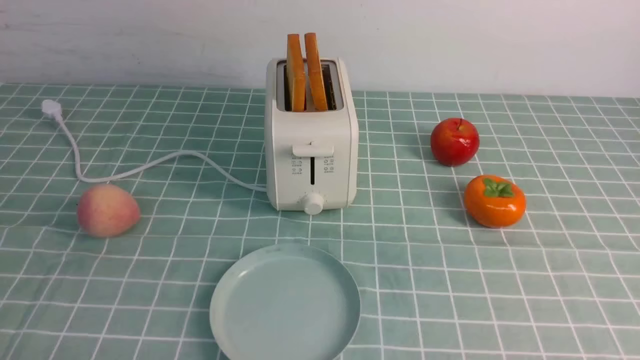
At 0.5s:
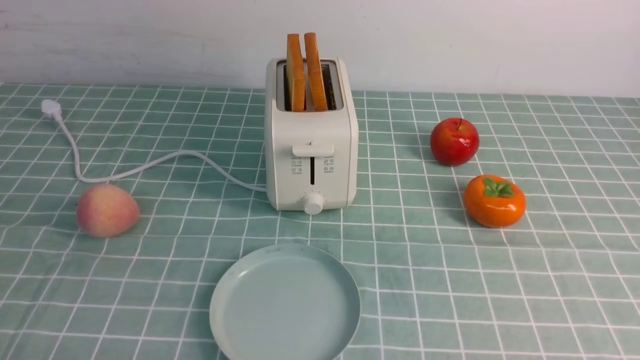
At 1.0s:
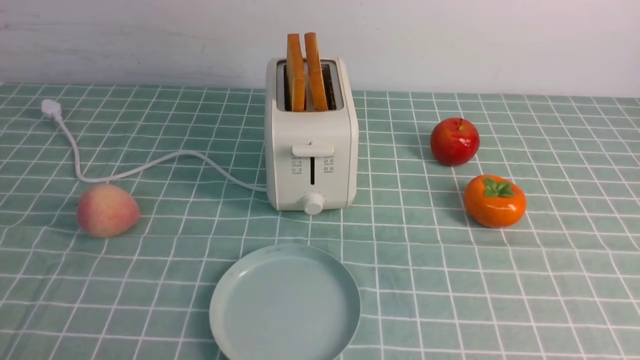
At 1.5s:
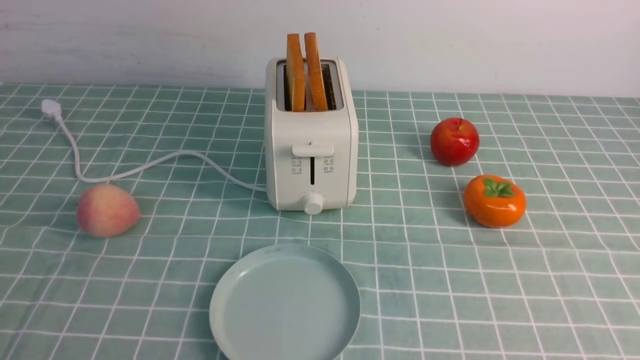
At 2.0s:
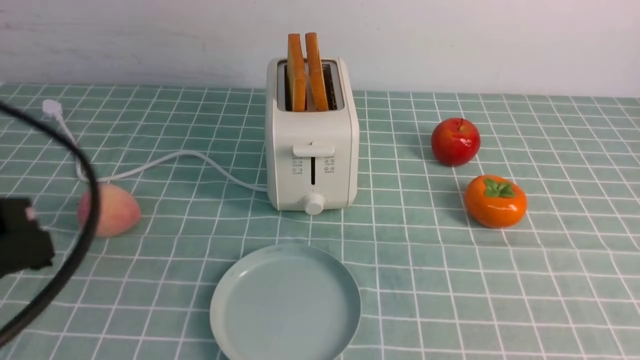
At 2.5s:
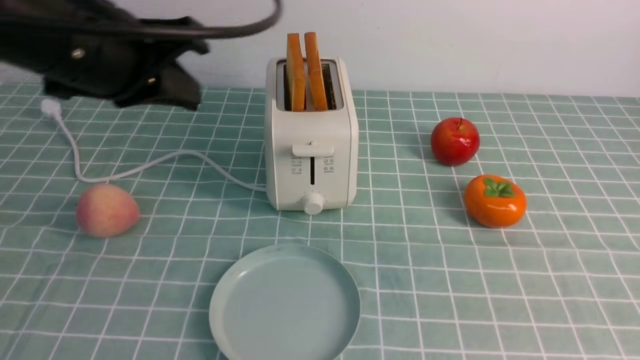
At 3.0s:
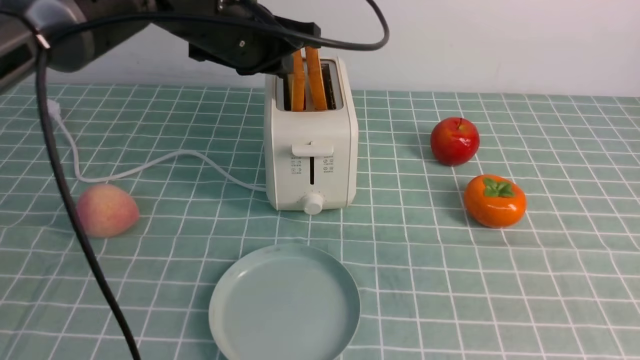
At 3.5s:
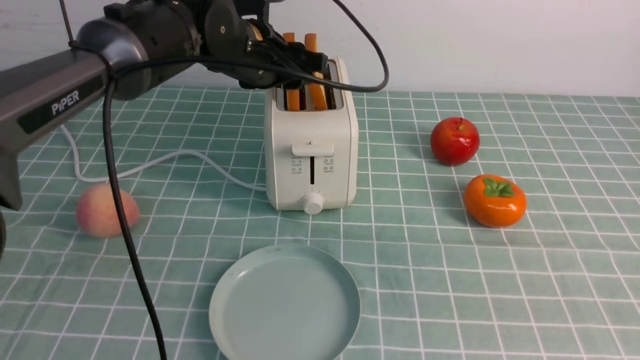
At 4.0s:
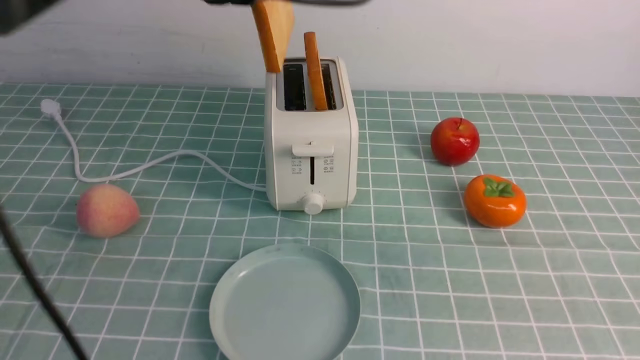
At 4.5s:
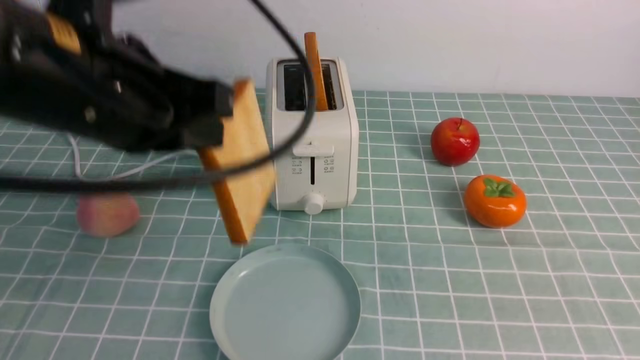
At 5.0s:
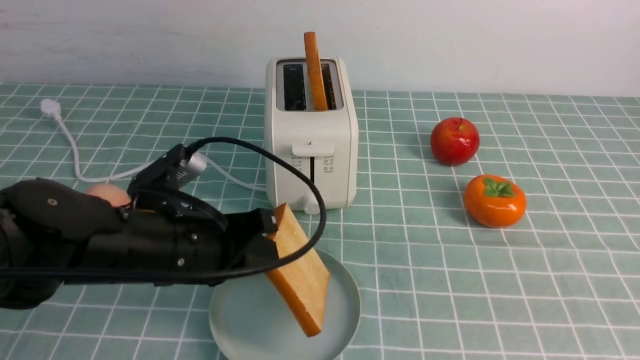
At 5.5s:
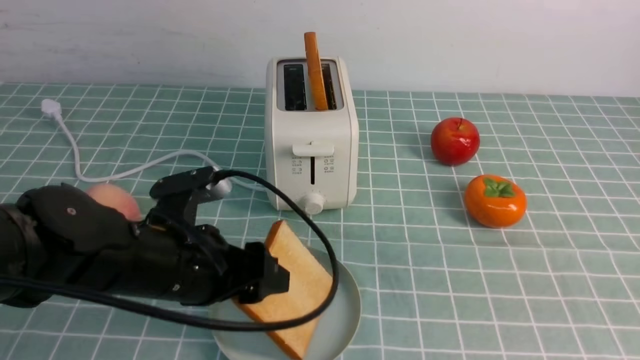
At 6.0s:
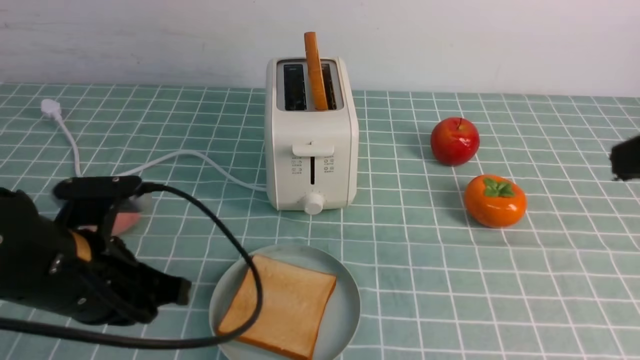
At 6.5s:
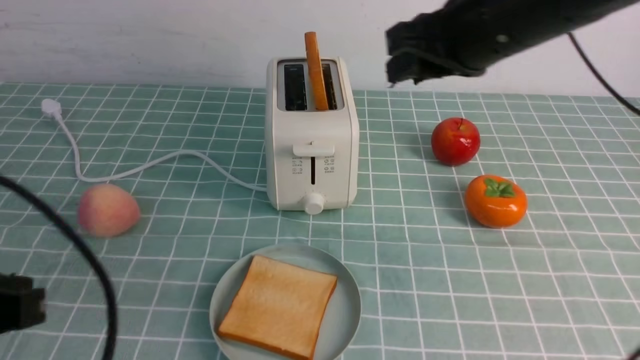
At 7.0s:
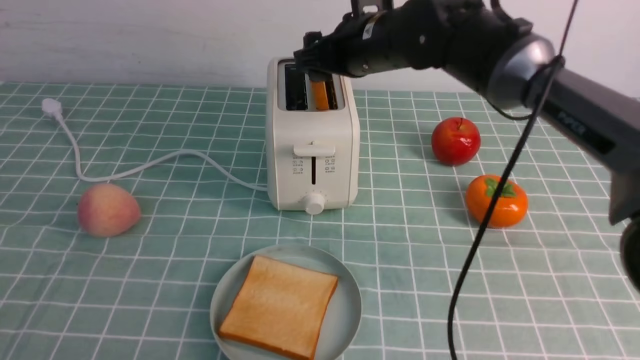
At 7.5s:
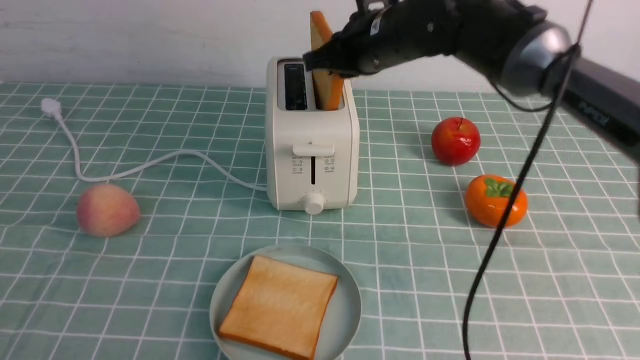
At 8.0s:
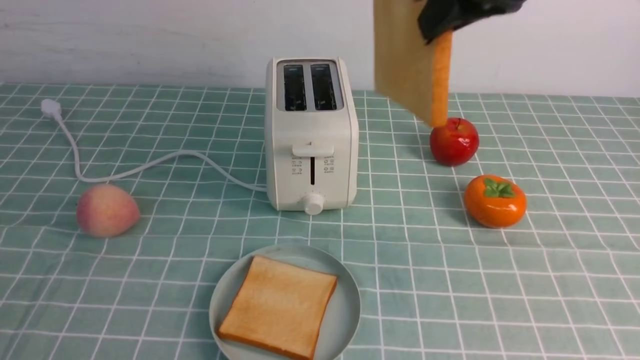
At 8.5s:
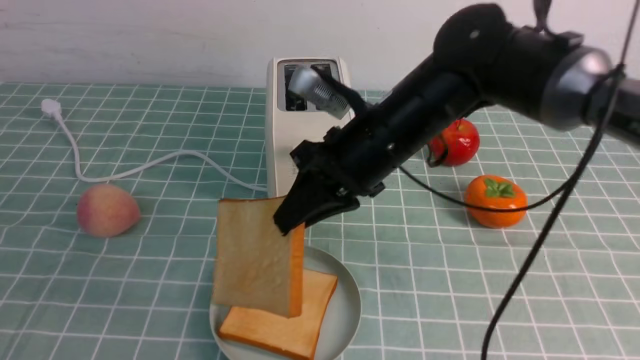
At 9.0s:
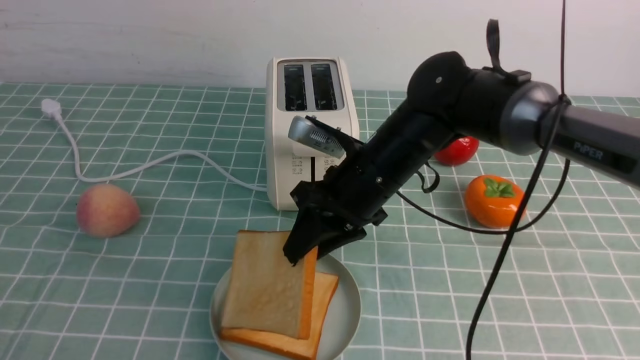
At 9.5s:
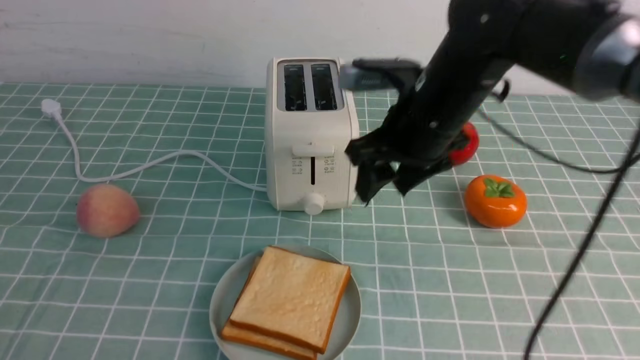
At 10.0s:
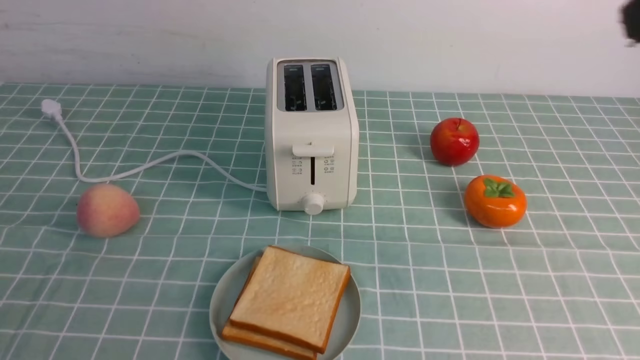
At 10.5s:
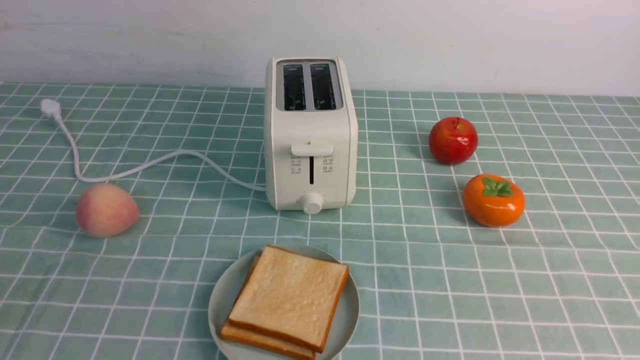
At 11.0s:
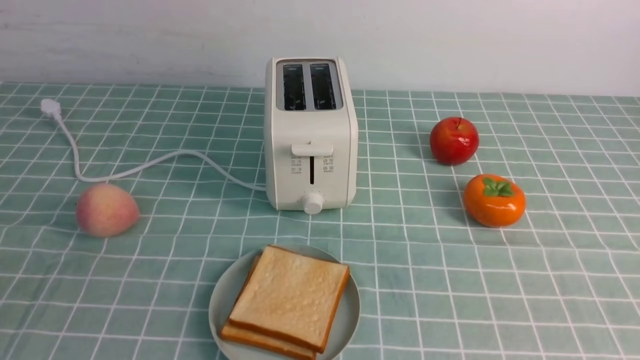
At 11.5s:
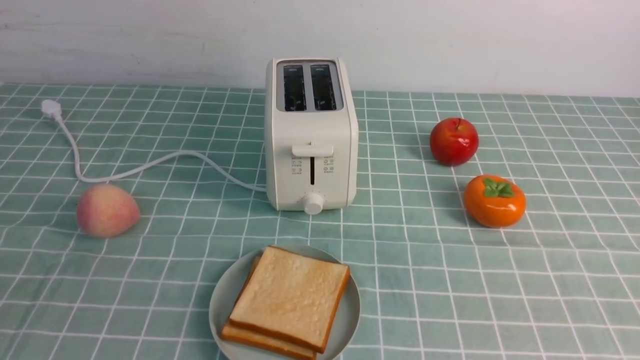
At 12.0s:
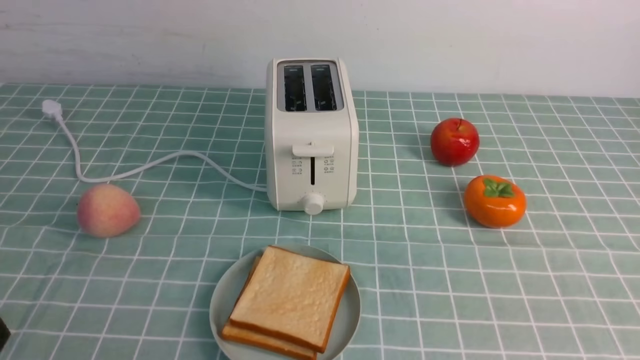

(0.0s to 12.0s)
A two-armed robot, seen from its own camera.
Task of the whole recording: take toasted bread from bread machine on blue coffee table place on plate.
Step, 0.0s - 3.5s: use the left arm to take out a slice of bread.
Step, 4.0s - 6.0s: use the left arm to put a slice of bread into the empty plate.
Step, 6.5s - 8.0s: use the right arm to take out a slice of bread.
Step, 8.5s - 9.5s: use the right arm to put a slice of bread into the plate.
0.0s - 2.0s: The left gripper is displaced upward and forward by approximately 20 cm, and closes up.
2.0s - 4.0s: The left gripper is displaced forward and to the right by about 25 cm, and opens, then closes again; the right gripper heads upward, covering some 5 cm.
4.0s - 6.0s: The right gripper is displaced forward and upward by approximately 15 cm. Meanwhile the left gripper moves downward and backward, about 25 cm, and opens, then closes again.
6.0s - 8.0s: The left gripper moves backward and to the left, approximately 20 cm. The right gripper shifts roughly 20 cm forward and to the left, and opens, then closes again.
8.0s - 10.0s: The right gripper goes about 20 cm backward and to the right, travels downward and back again, roughly 20 cm each way, and opens, then closes again.

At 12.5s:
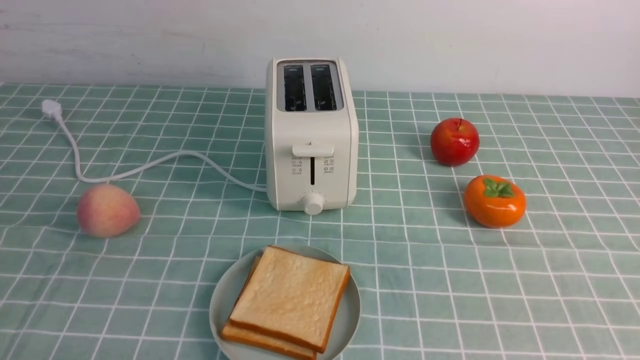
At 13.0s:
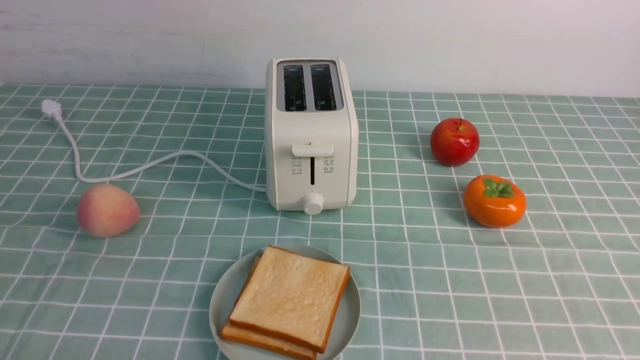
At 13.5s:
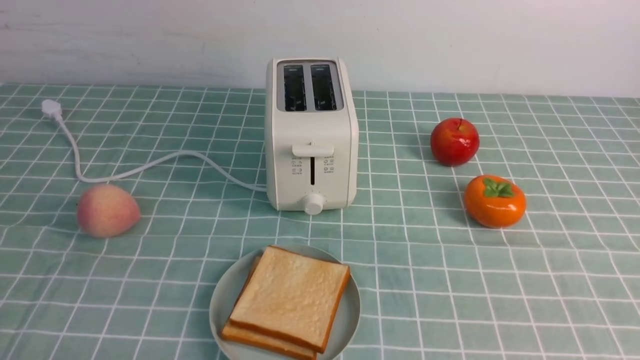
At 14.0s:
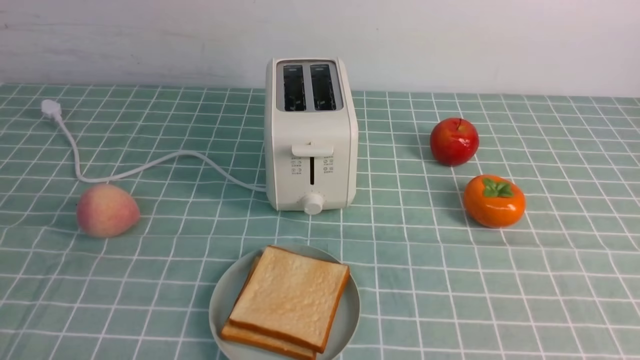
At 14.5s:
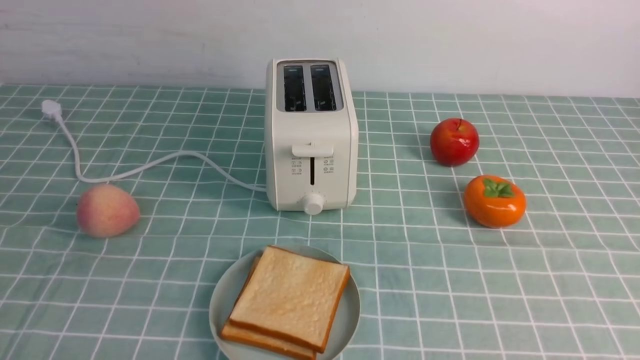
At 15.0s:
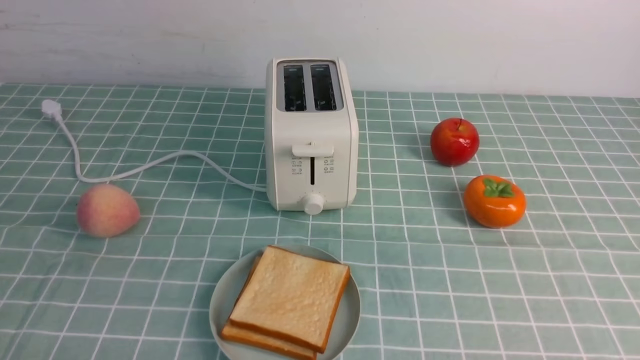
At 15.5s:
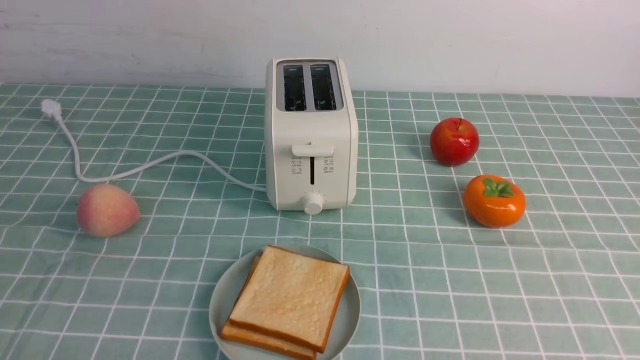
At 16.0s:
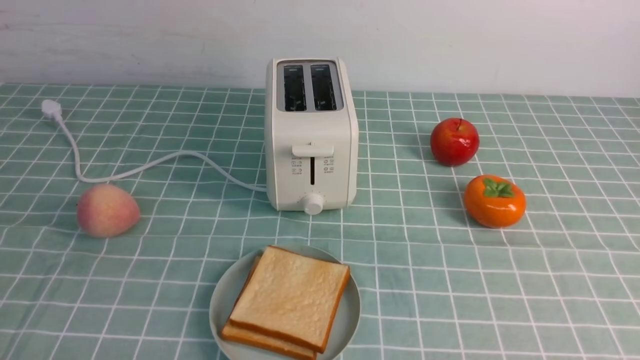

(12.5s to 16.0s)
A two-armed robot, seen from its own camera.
Task of the whole recording: take toasted bread from bread machine on blue coffee table place on plate.
14.5s - 16.0s: The two grippers keep their place.

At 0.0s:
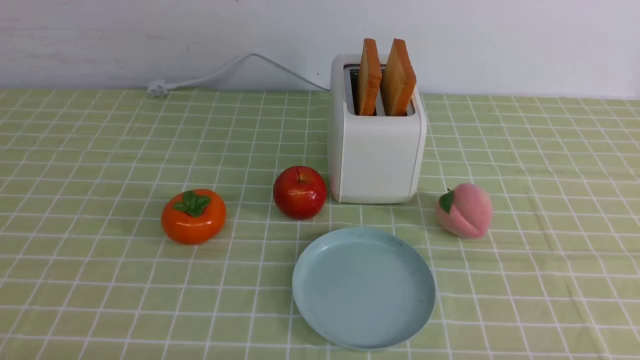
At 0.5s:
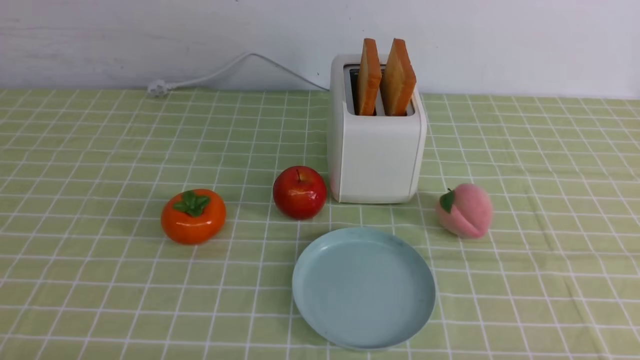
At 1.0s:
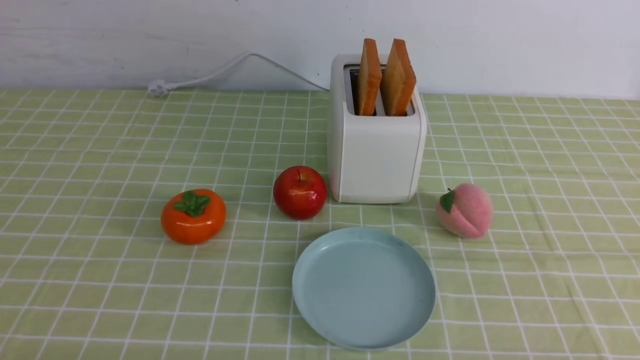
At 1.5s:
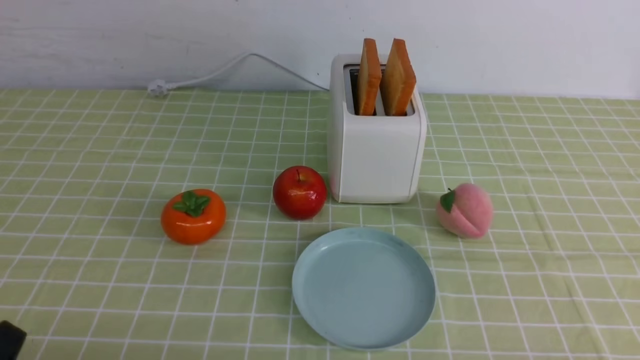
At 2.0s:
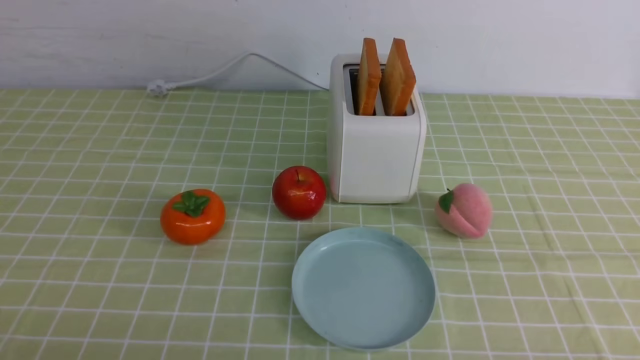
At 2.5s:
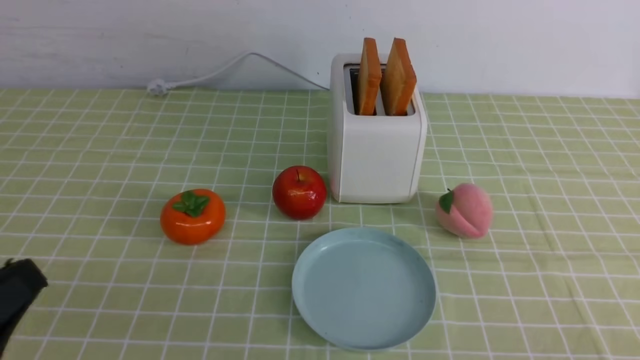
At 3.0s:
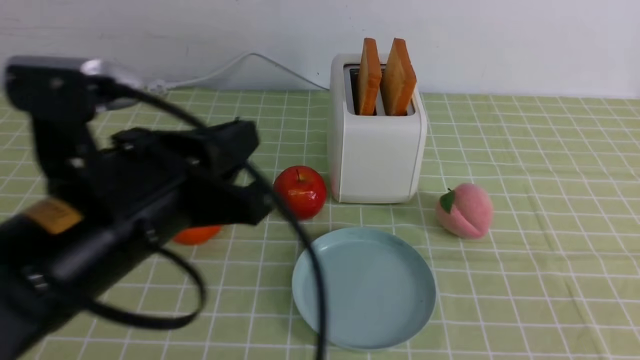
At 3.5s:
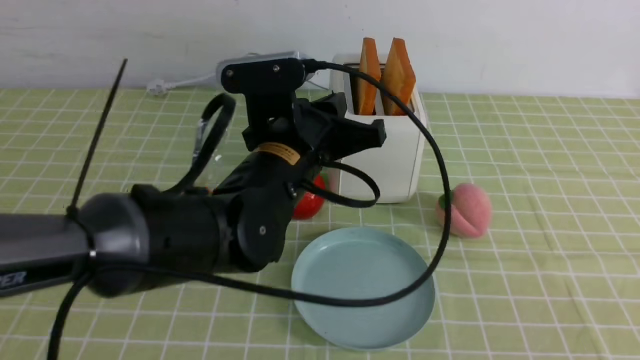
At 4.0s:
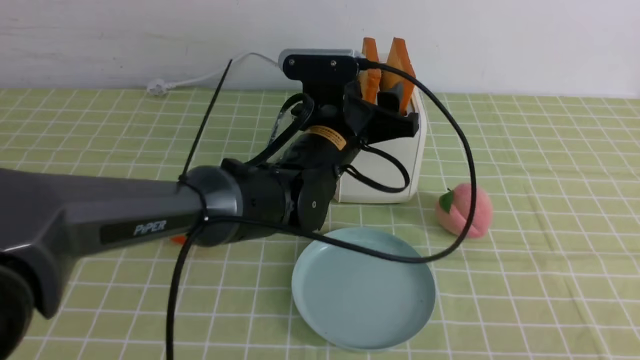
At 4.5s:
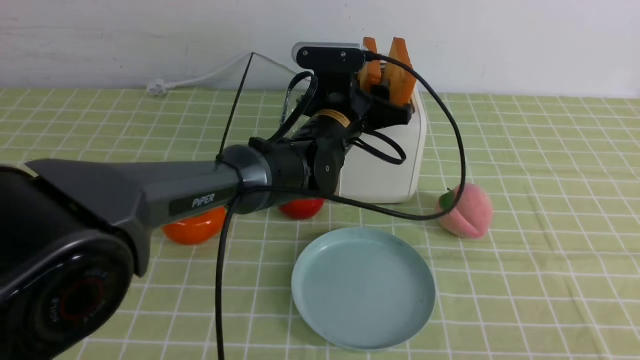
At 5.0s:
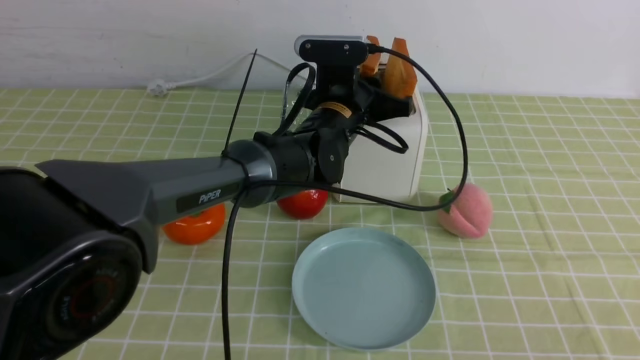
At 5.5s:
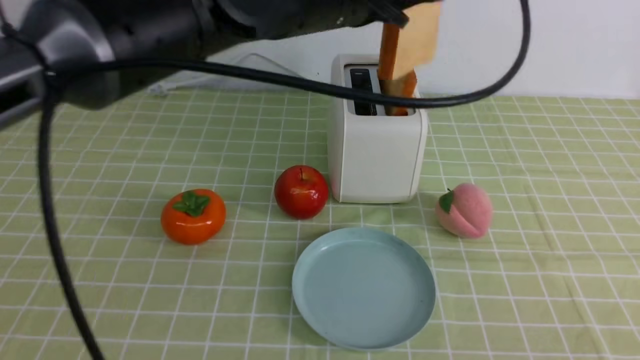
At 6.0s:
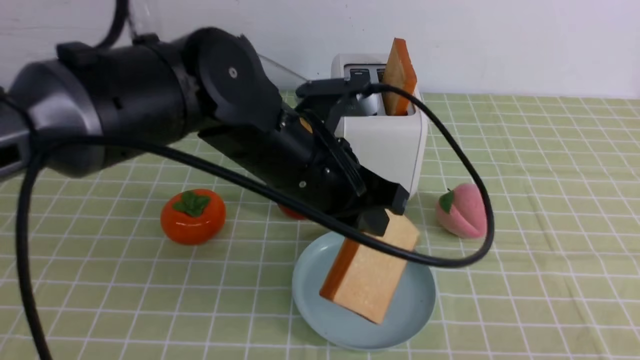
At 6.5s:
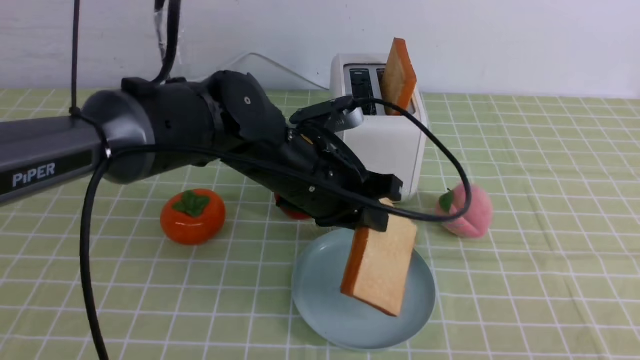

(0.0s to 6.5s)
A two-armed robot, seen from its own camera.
Task of the whole recording: take toasted bread from bread machine on green coffee tablecloth place on plate.
Step, 0.0s - 5.0s: use the left arm to take out a slice of bread.
2.0s - 4.5s: The left gripper travels forward and to the right by about 50 cm, and opens; the right gripper shifts some 10 cm upward, and closes.
4.5s - 6.5s: The left gripper goes about 10 cm backward, and closes up.
